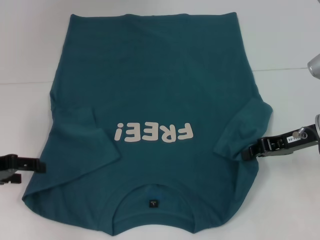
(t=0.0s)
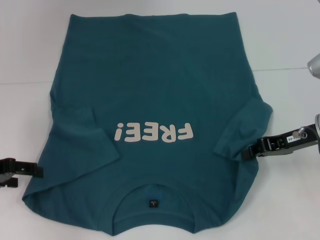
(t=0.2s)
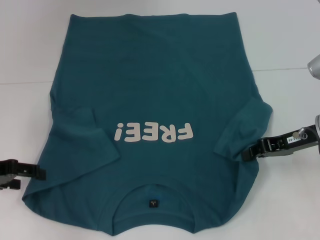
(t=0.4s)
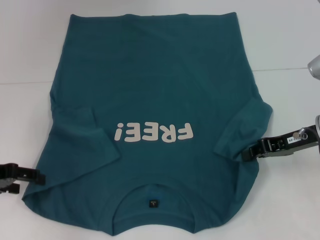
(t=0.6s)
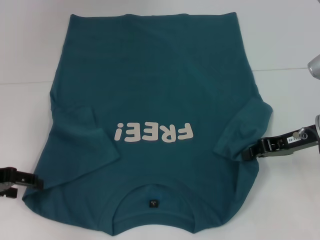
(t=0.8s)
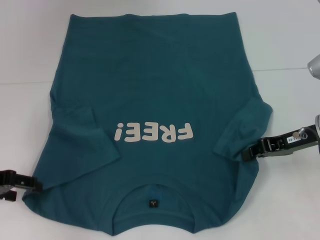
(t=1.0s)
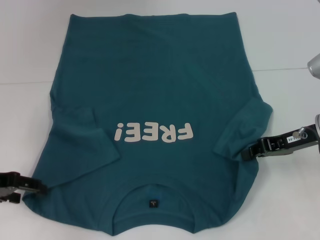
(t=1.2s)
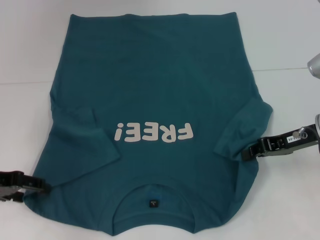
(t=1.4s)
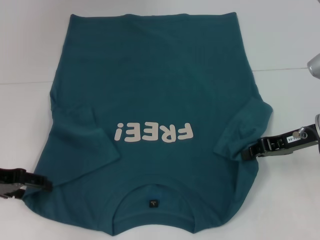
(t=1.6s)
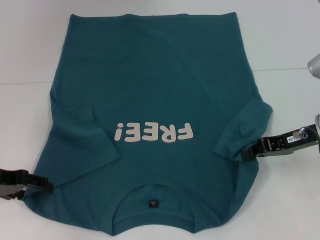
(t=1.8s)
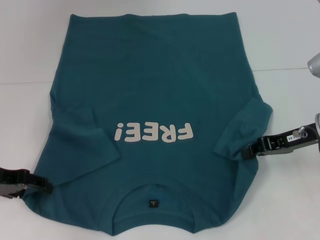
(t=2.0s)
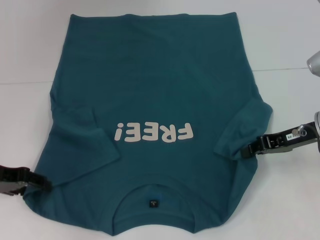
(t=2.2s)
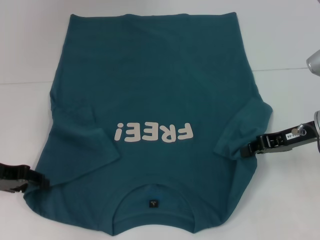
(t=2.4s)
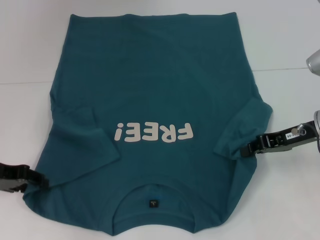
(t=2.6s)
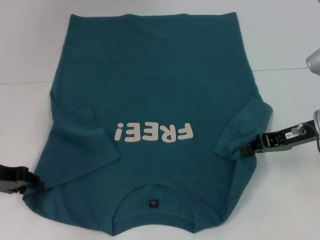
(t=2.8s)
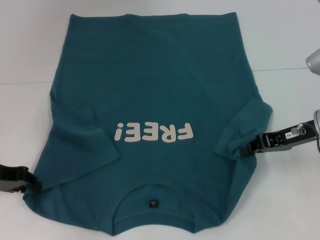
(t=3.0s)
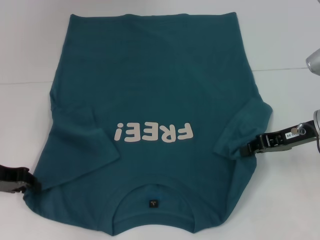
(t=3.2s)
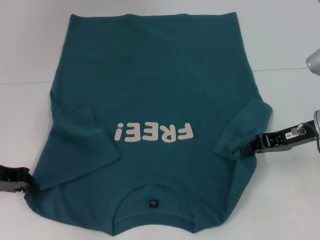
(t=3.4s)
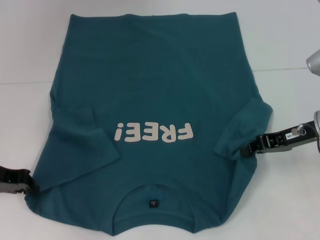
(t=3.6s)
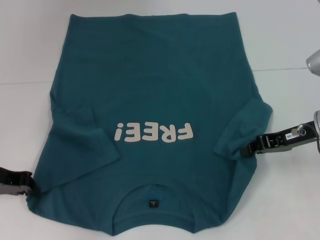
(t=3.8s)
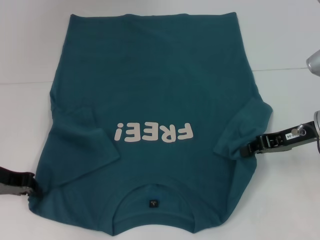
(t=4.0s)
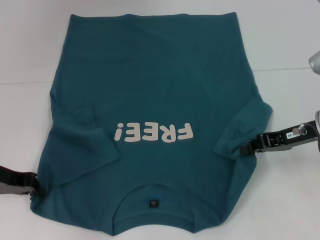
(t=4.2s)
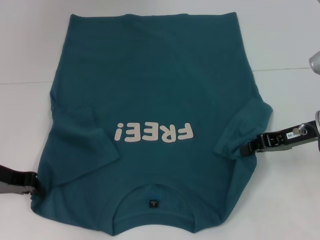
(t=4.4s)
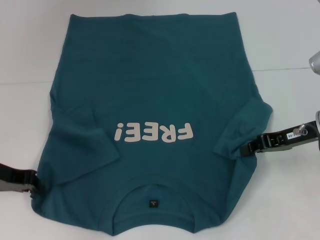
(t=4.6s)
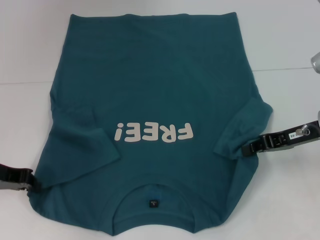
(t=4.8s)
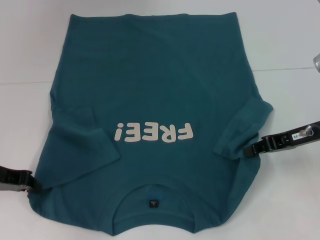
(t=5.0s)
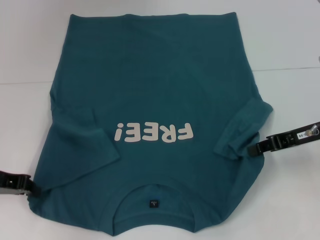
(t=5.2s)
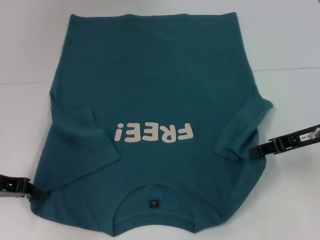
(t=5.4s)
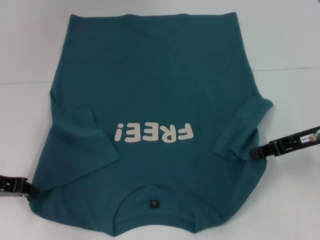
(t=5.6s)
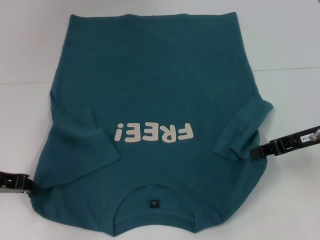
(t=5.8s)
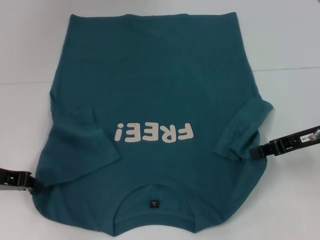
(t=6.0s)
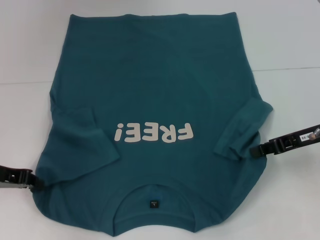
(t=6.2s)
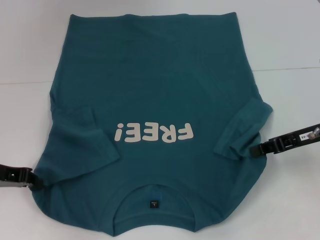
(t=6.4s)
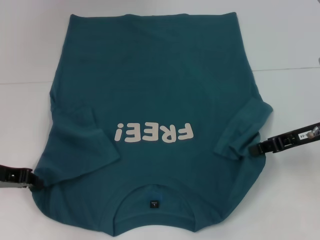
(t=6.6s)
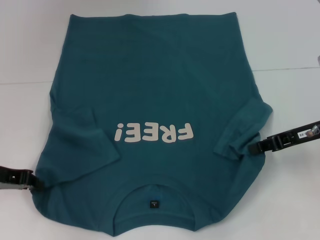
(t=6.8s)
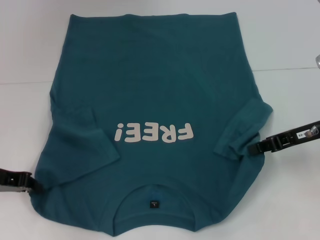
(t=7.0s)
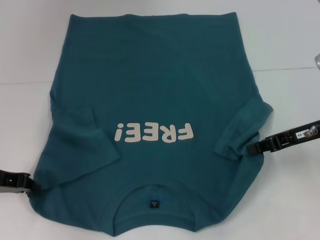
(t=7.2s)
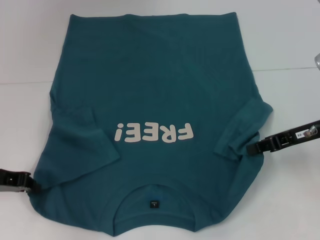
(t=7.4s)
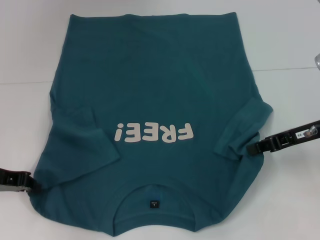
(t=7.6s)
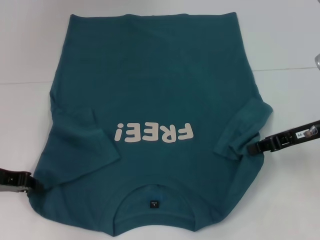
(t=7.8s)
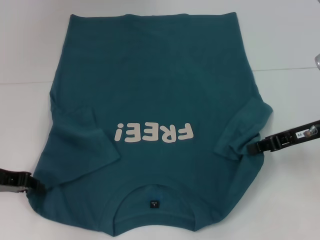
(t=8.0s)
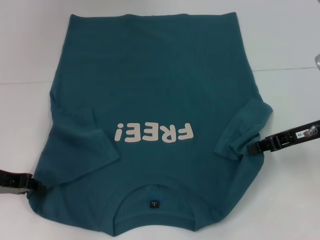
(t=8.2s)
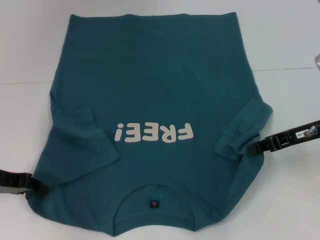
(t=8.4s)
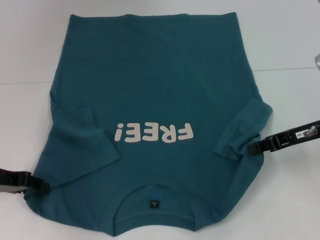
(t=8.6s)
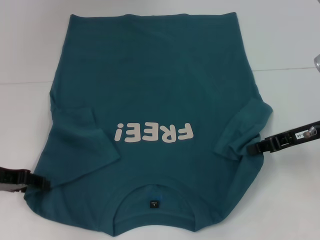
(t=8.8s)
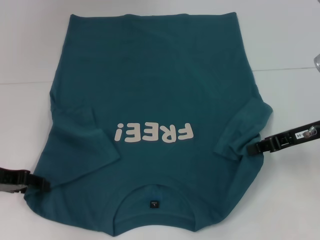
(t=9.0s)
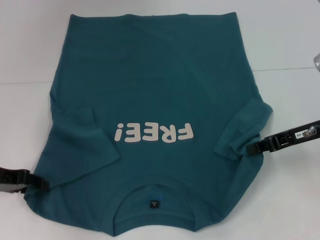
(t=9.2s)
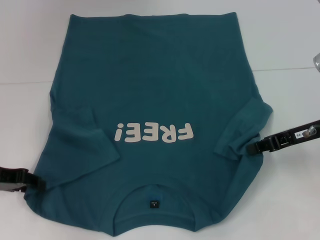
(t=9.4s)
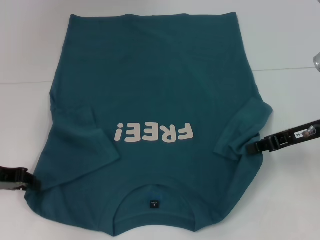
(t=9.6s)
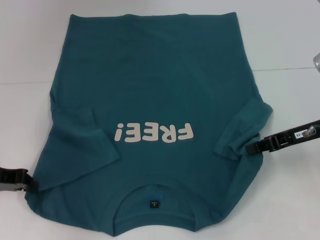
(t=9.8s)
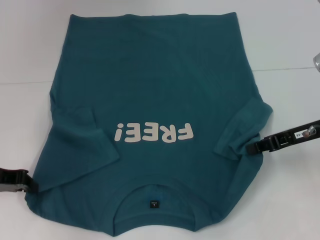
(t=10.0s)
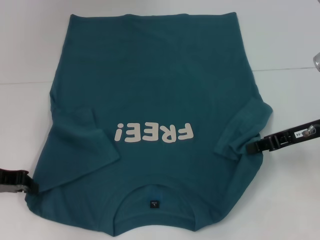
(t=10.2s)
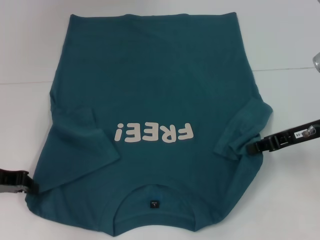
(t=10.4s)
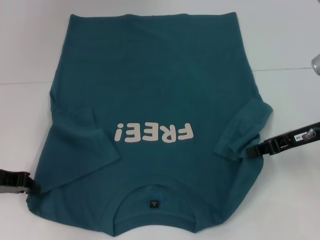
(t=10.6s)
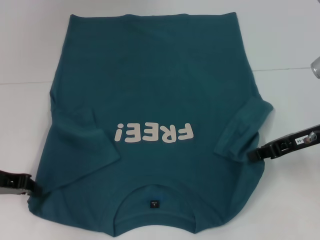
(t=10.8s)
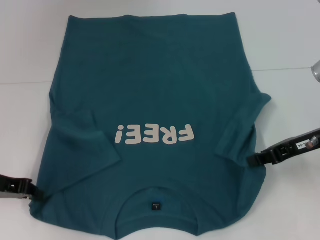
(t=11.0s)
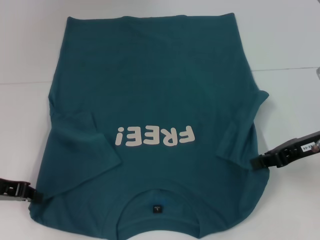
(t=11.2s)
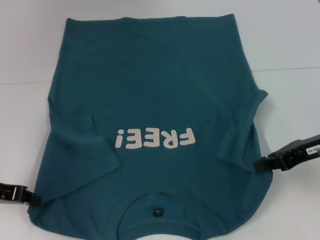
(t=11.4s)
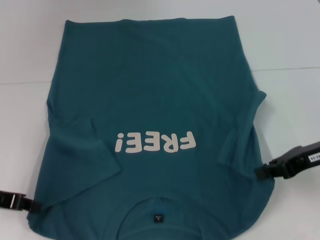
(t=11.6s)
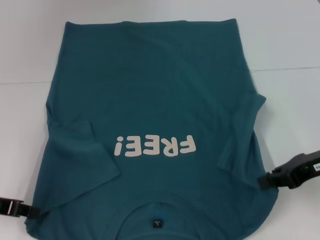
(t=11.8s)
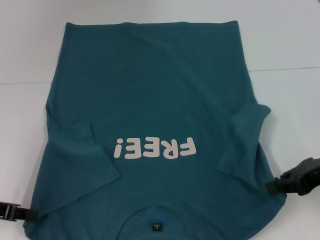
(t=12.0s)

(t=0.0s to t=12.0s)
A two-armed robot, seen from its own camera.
Step, t=0.0s - t=3.6s: Grab the bottom left corner with your left hand.
t=0.0s - t=1.6s: There are only small adjustments of the grippers.
t=1.6s - t=3.0s: The left gripper closes.
t=3.0s - t=4.4s: The left gripper closes its fingers.
t=4.4s - t=6.0s: There are only small adjustments of the grippers.
t=6.0s - t=7.6s: Both grippers stay put.
t=9.0s - t=10.4s: The left gripper closes up.
t=10.4s - t=12.0s: The right gripper moves backward, about 5 cm.

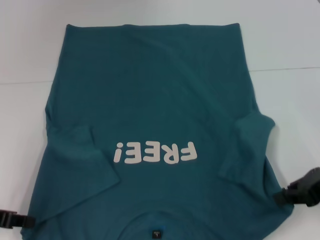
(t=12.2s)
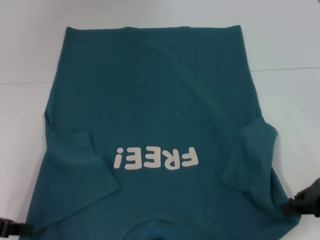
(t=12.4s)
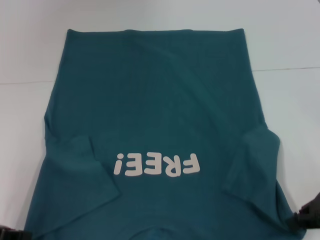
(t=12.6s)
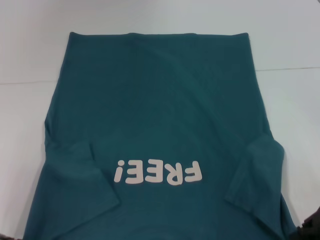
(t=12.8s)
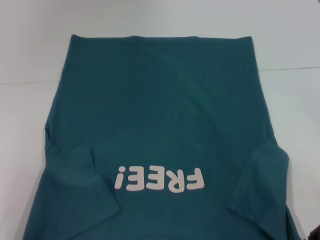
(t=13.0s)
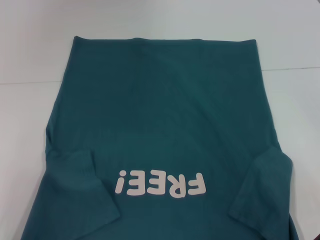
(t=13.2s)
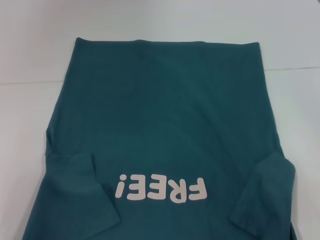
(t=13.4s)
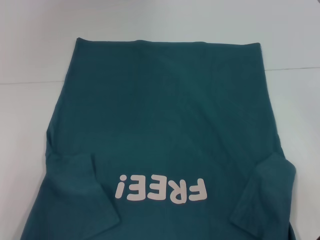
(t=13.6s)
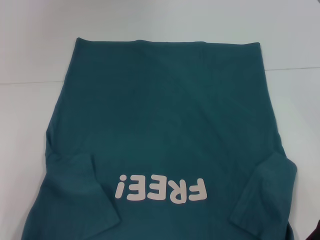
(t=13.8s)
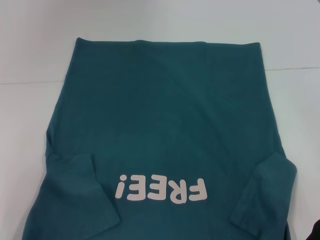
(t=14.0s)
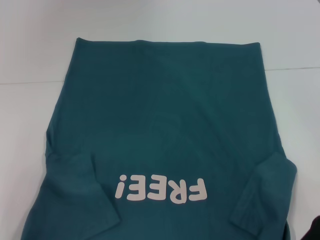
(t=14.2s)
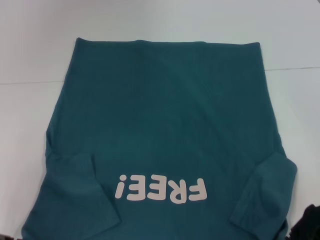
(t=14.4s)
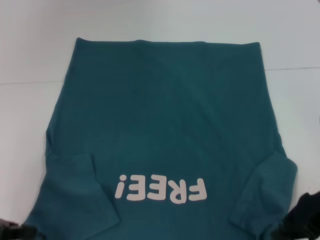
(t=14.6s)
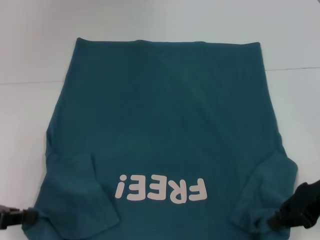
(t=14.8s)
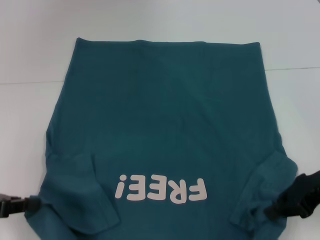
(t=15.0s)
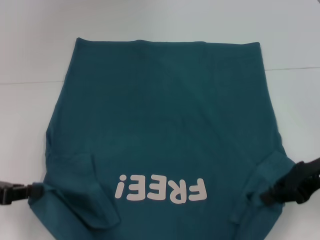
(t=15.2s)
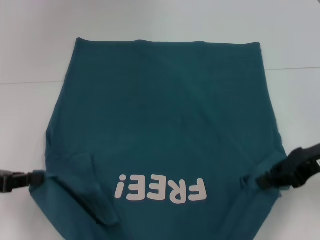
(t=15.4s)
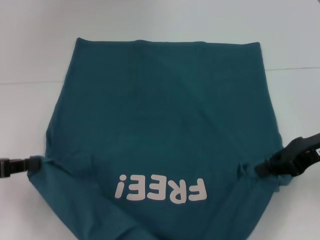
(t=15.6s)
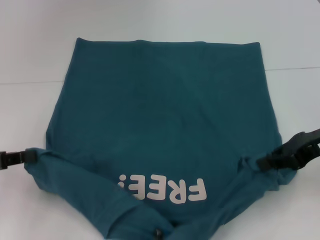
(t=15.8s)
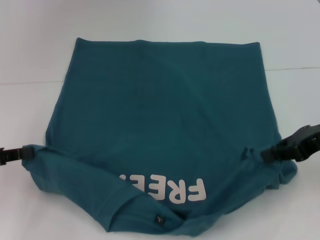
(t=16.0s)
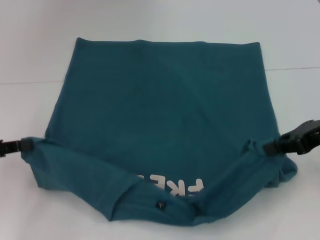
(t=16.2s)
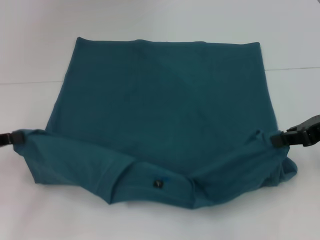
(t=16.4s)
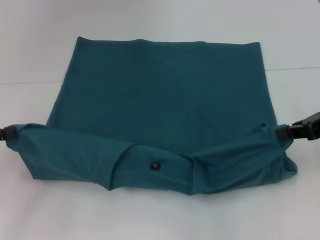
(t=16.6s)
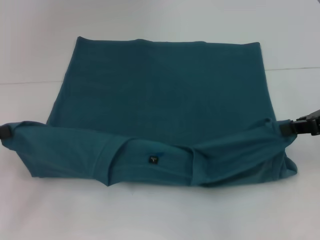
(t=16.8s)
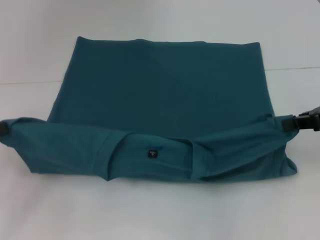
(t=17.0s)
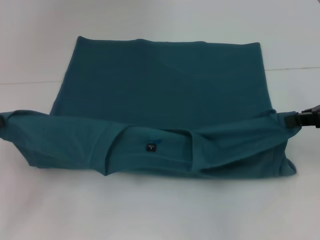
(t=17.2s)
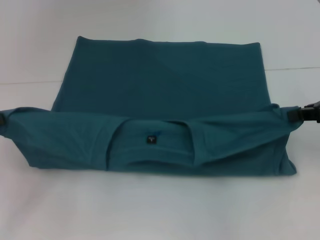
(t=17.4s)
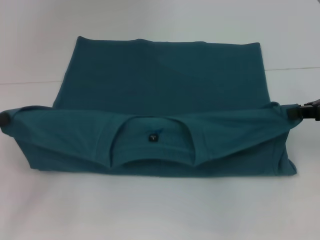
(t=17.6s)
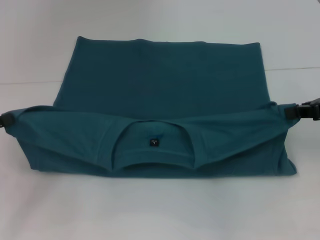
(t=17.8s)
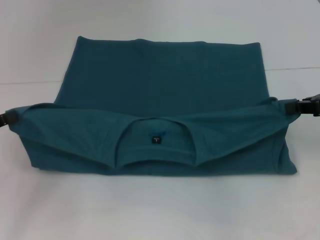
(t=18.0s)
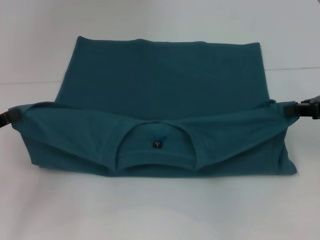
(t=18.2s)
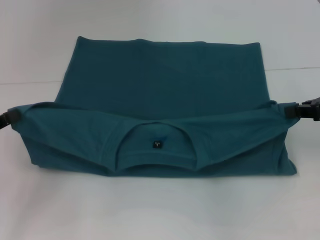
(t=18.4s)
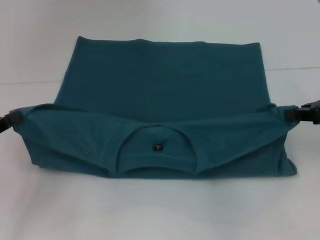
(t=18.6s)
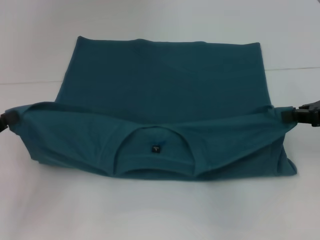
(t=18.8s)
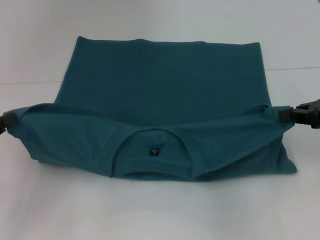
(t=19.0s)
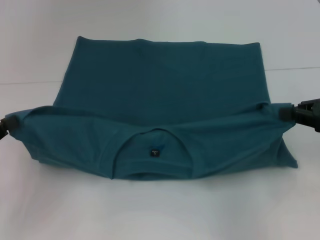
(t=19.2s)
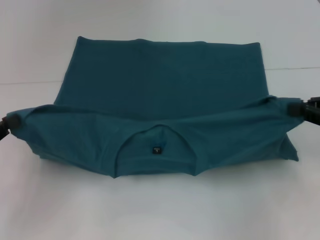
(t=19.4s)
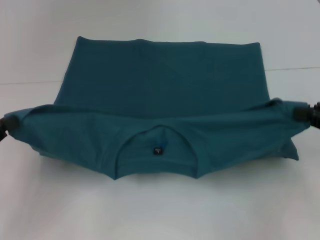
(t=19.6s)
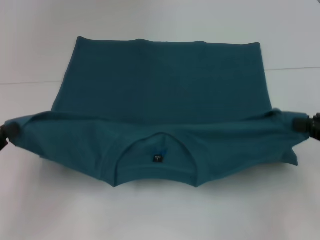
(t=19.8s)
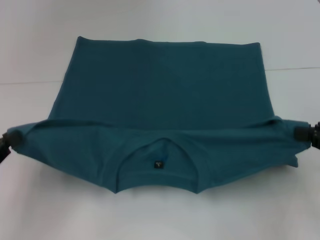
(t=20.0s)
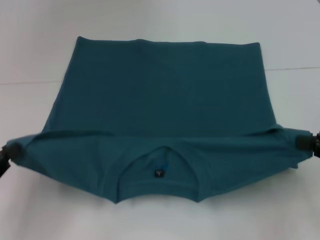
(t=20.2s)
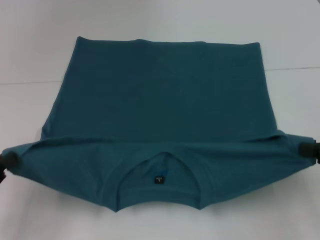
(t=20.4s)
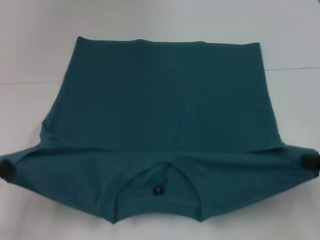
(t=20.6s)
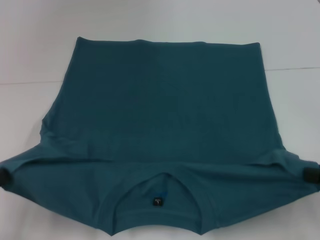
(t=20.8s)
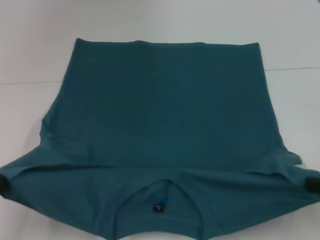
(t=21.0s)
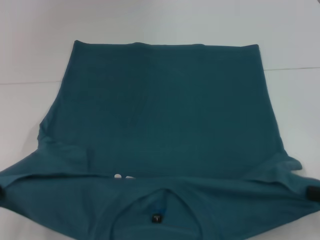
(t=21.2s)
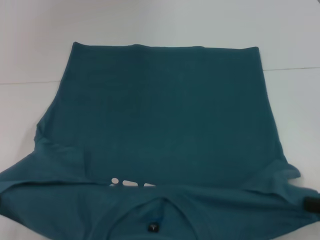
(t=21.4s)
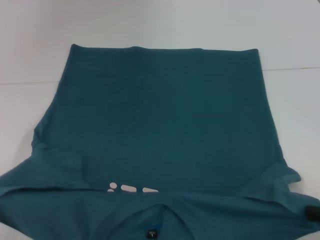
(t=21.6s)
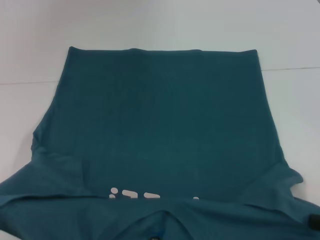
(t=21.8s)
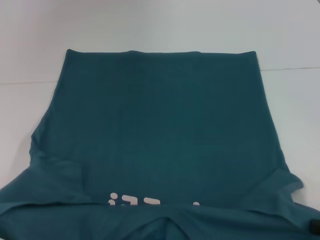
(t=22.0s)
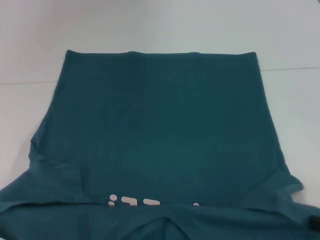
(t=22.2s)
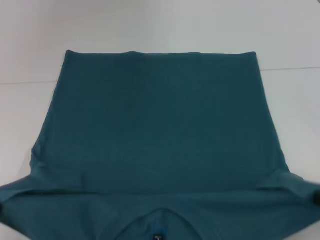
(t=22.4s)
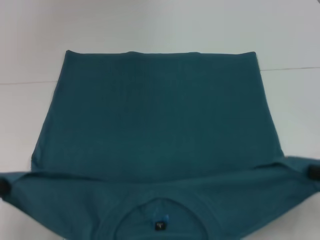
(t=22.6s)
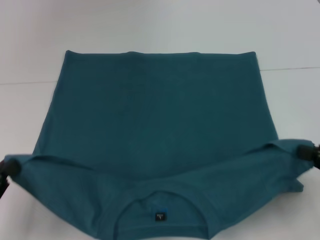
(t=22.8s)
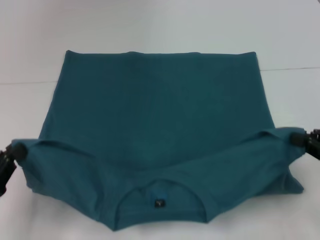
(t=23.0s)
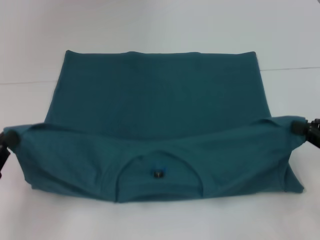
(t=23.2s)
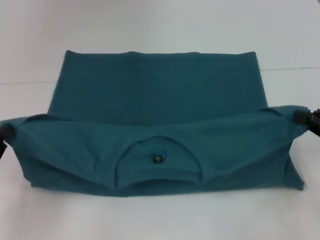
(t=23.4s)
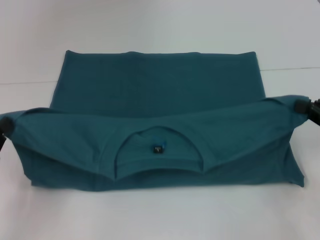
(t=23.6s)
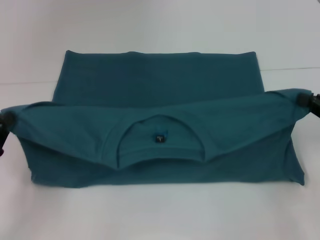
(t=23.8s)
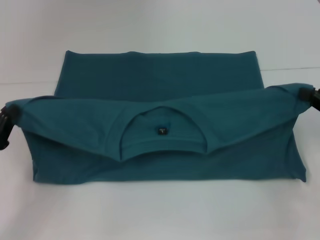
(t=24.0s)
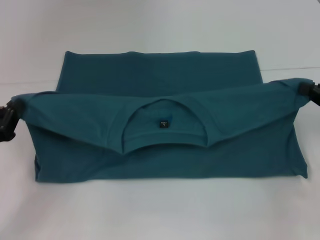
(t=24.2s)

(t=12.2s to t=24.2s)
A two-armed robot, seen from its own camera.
t=13.8s - t=15.2s: The right gripper shifts by about 5 cm.
t=15.2s - t=16.6s: The right gripper moves some 5 cm.
t=16.6s - t=18.2s: The grippers move only a little.
t=18.2s - t=19.8s: The left gripper ends up roughly 5 cm from where it was. Meanwhile the right gripper moves backward, some 10 cm.
t=19.8s - t=21.2s: The grippers both shift backward by approximately 10 cm.
t=21.2s - t=22.6s: The grippers stay close to where they were, moving slightly.
t=22.6s - t=24.2s: Both grippers travel together forward, approximately 10 cm.
